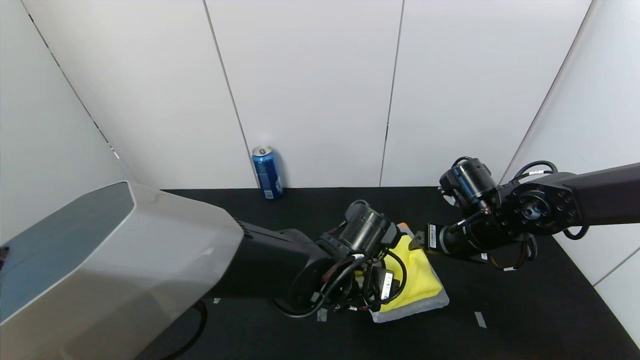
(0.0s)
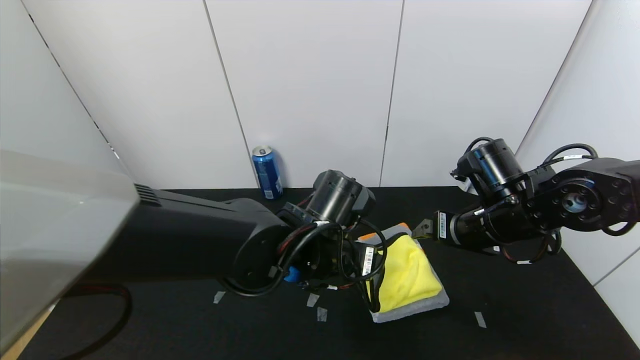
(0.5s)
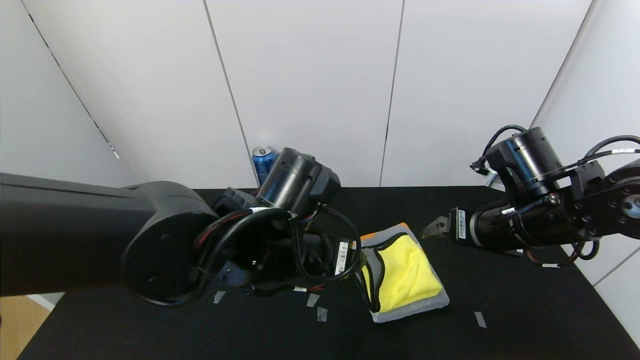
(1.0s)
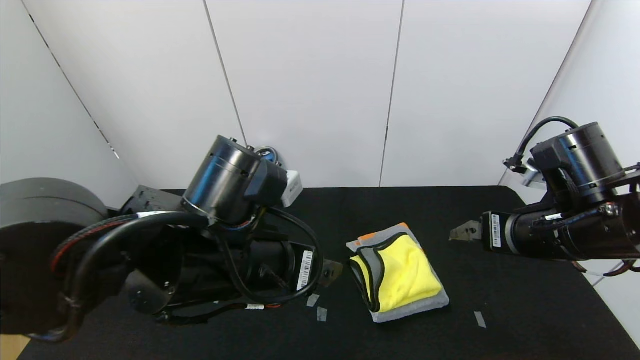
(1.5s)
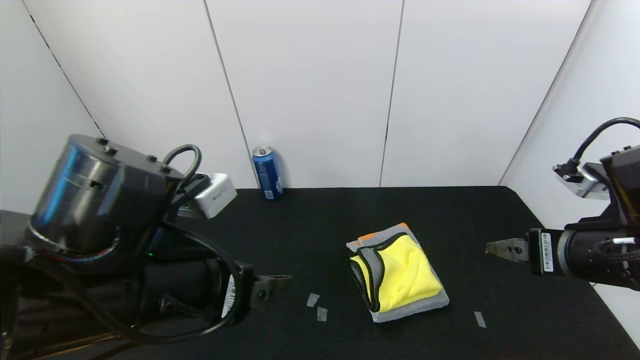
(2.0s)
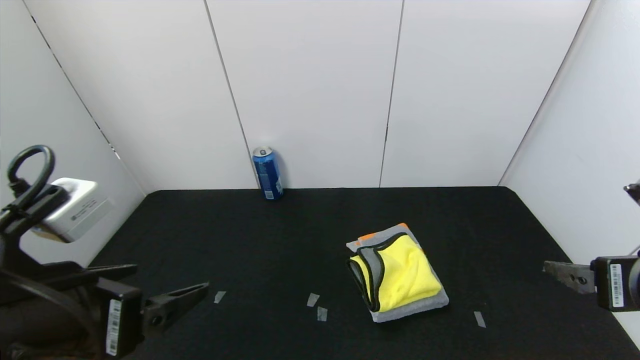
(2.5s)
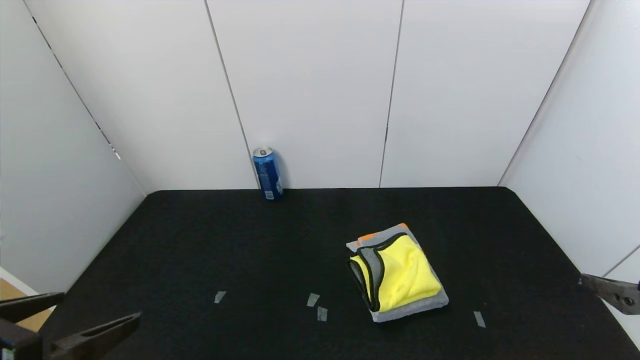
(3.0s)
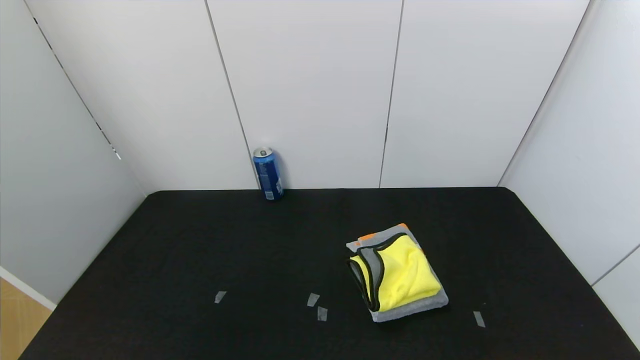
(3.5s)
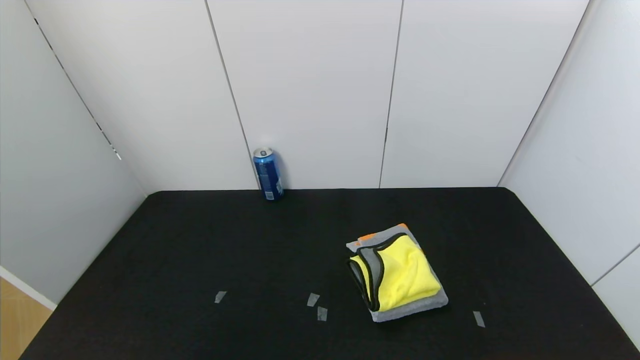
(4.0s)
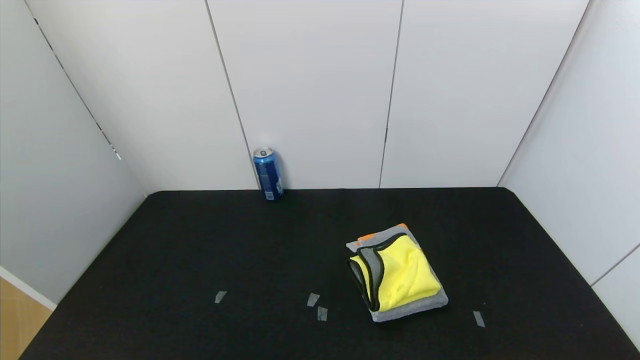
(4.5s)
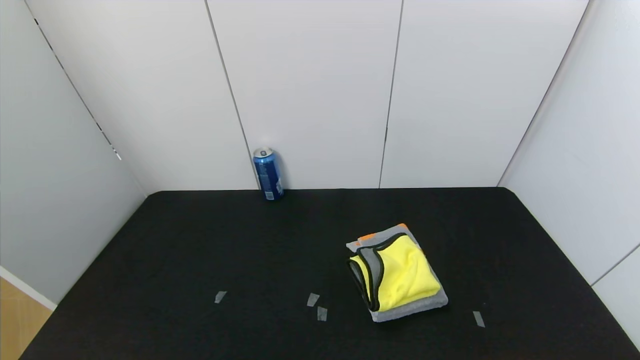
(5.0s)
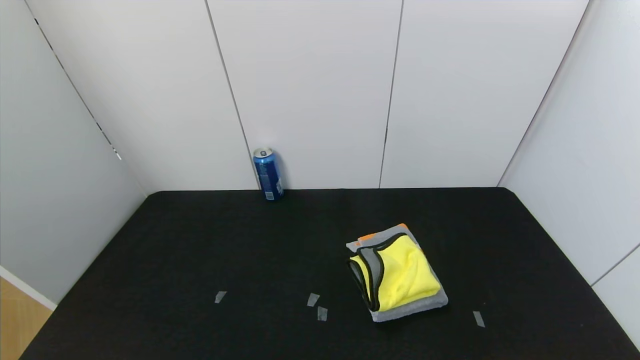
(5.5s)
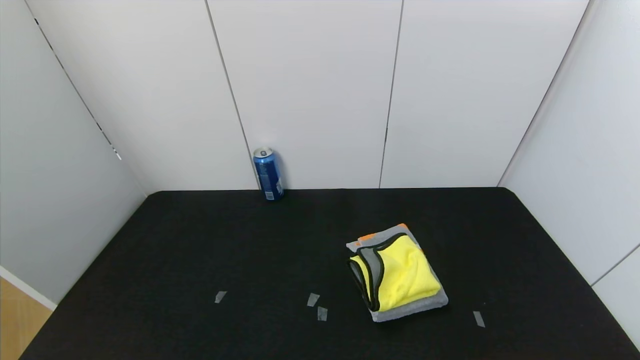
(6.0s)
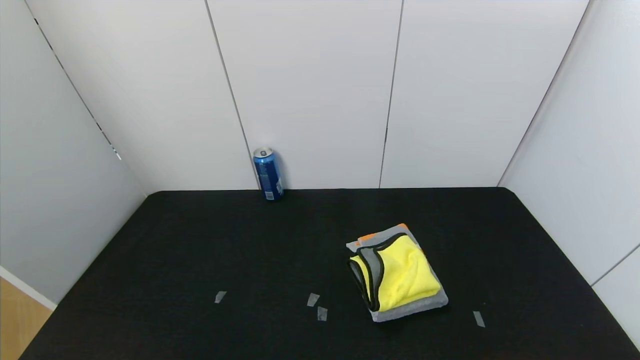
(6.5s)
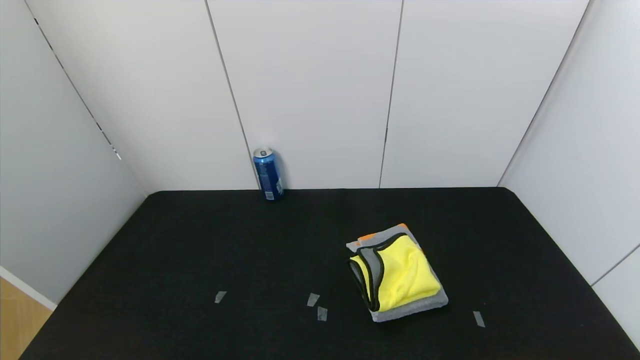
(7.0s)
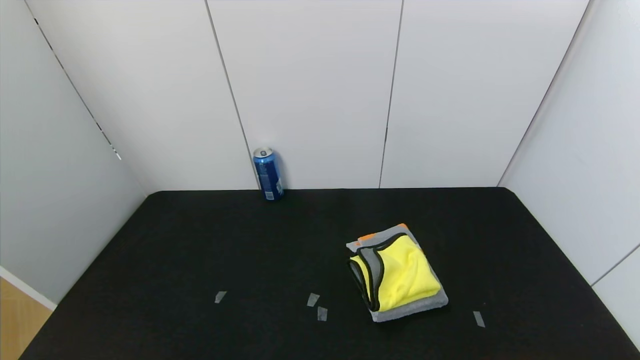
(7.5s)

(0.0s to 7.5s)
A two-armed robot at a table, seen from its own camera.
Task of the whole recording: Use the gripper to fold the yellow towel and grey towel in half twice,then put the yellow towel on the grey towel.
0.0s - 2.0s: The right gripper heads backward, upward and to the right, covering approximately 15 cm, while the left gripper moves to the left, upward and backward, about 25 cm.
2.0s - 4.0s: The left gripper is displaced backward and to the left by approximately 25 cm; the right gripper travels backward and to the right by about 25 cm.
